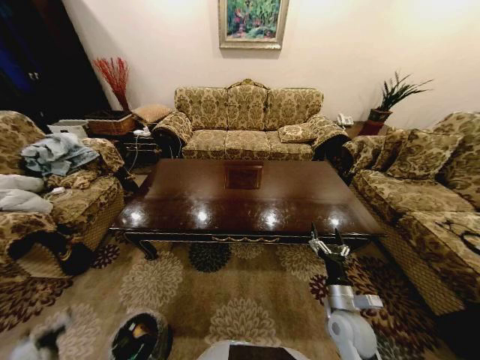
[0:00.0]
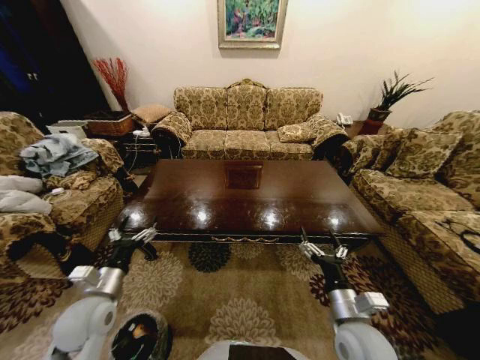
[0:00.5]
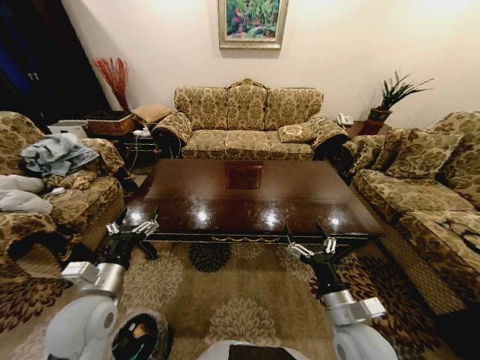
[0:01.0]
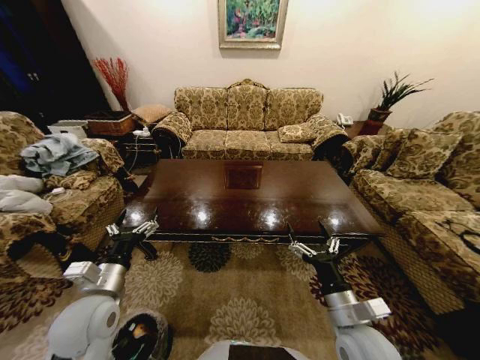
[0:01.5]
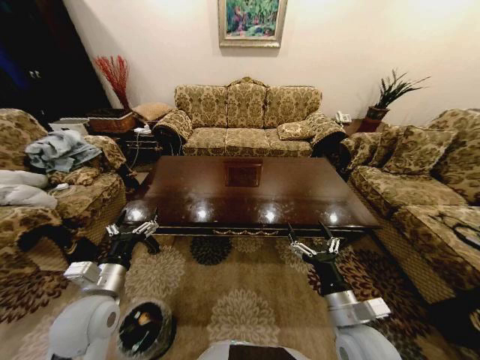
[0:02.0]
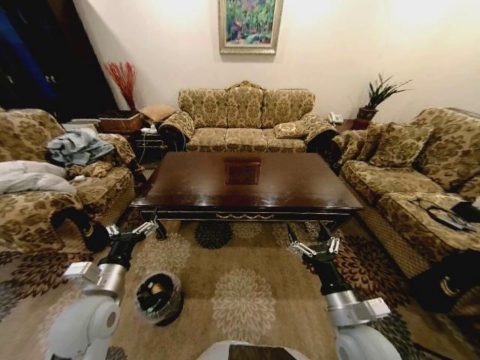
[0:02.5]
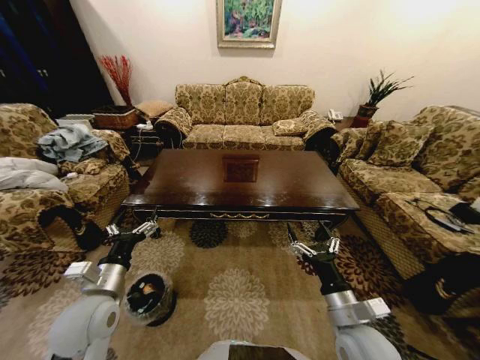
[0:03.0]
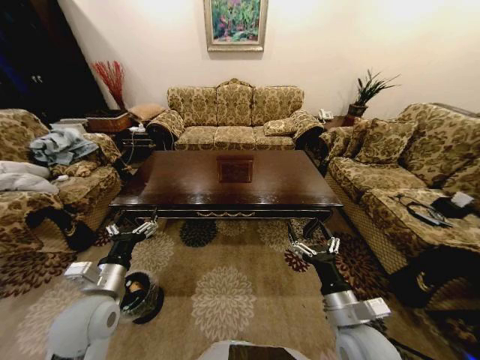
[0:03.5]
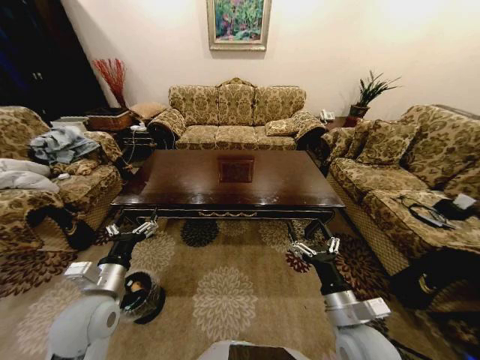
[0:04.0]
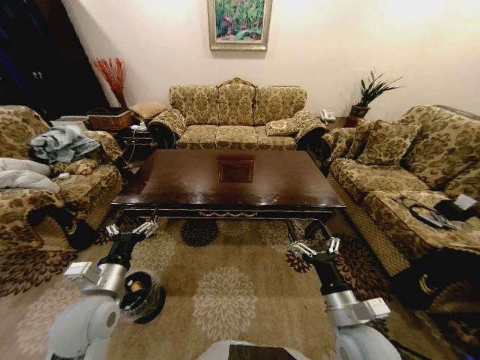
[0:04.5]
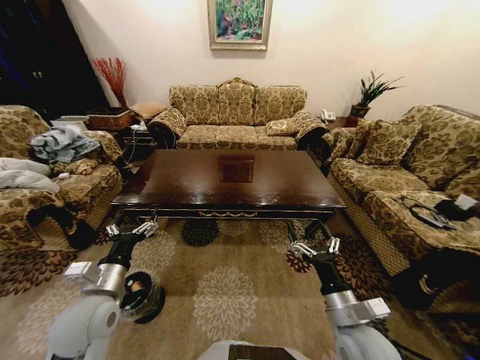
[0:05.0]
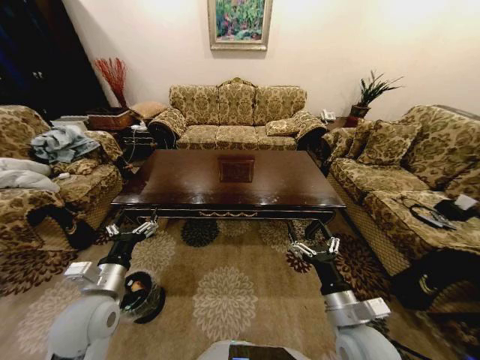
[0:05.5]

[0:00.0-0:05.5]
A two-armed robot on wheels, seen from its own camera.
Task of the whole recording: Move to the front of the table and place the trash on the table into the trash bin.
0:00.0 to 0:02.0: The right gripper moves upward, approximately 10 cm, while the left gripper shifts approximately 35 cm upward, to the right and forward.
0:03.5 to 0:05.5: Neither gripper changes place.
